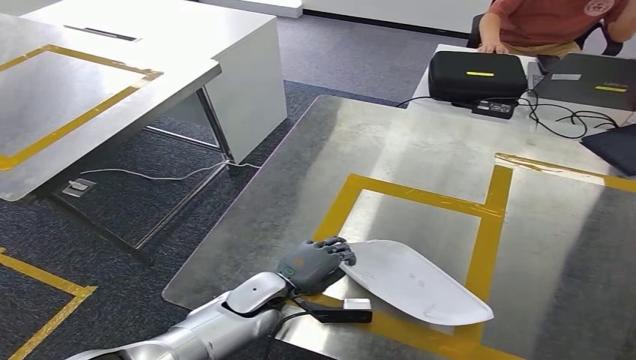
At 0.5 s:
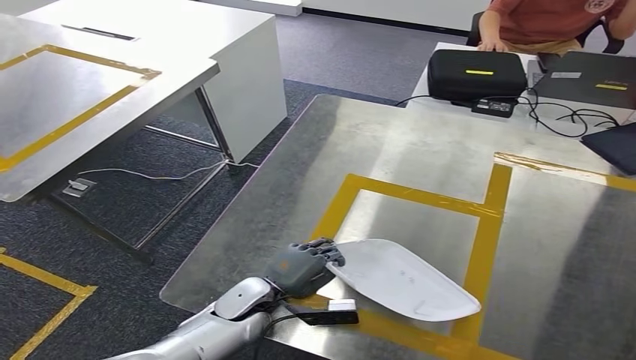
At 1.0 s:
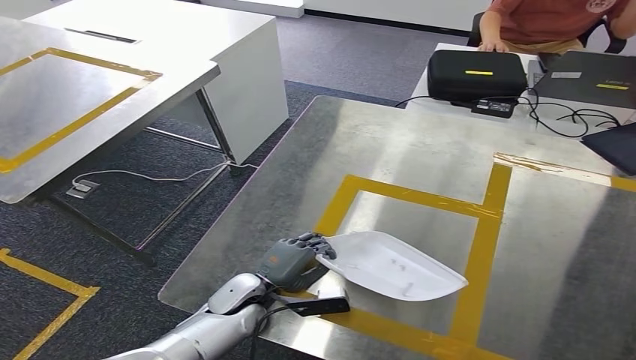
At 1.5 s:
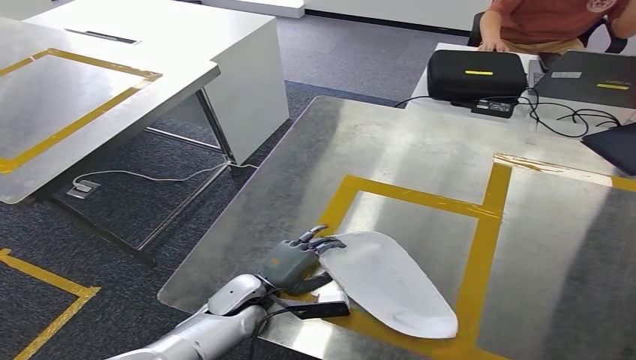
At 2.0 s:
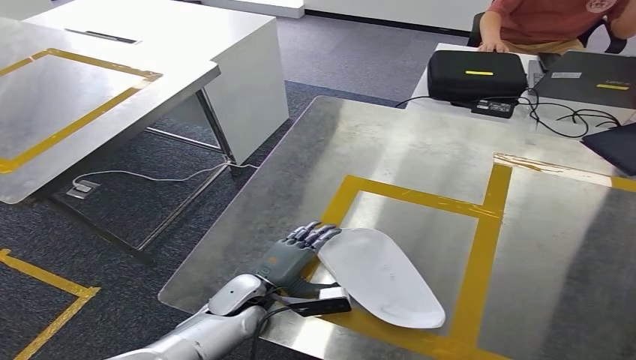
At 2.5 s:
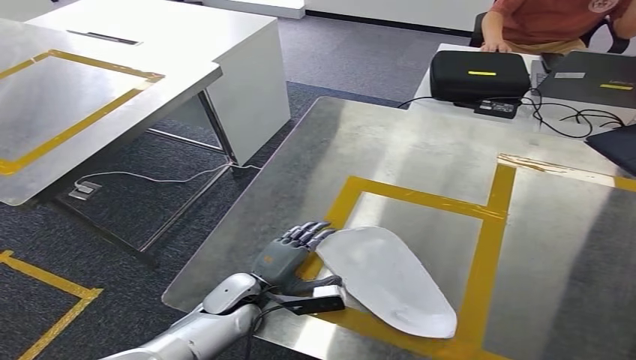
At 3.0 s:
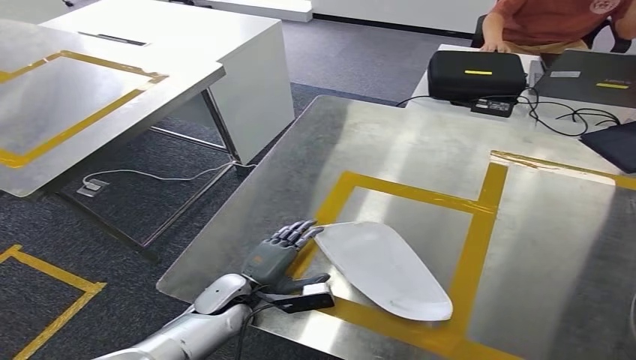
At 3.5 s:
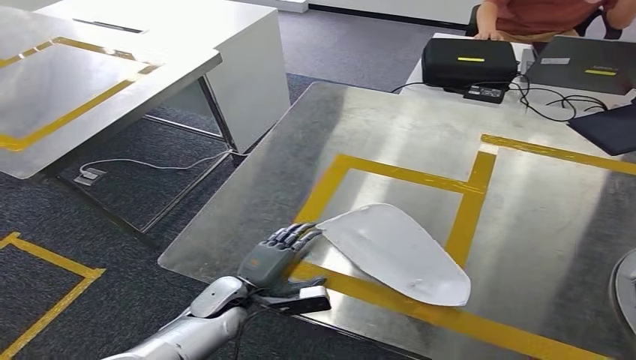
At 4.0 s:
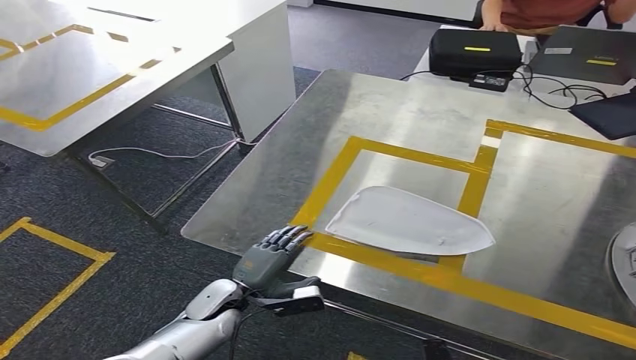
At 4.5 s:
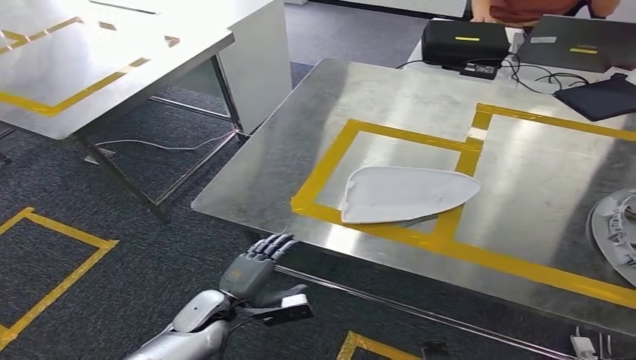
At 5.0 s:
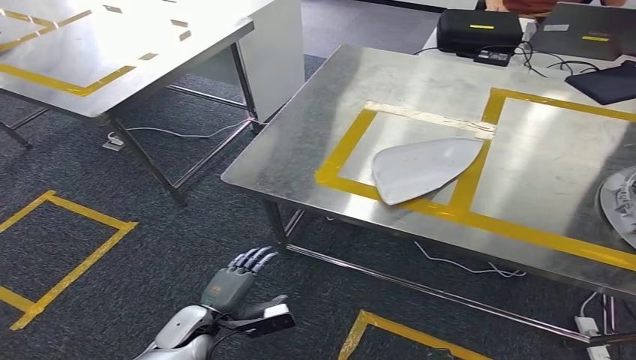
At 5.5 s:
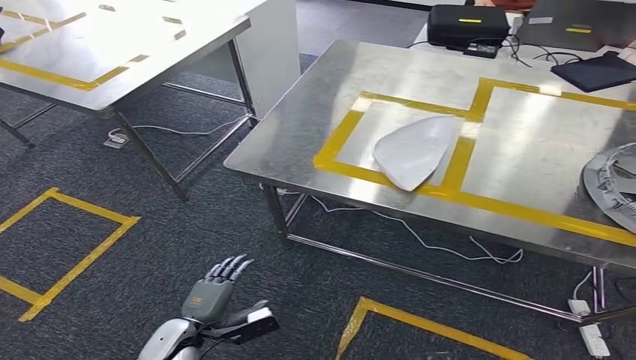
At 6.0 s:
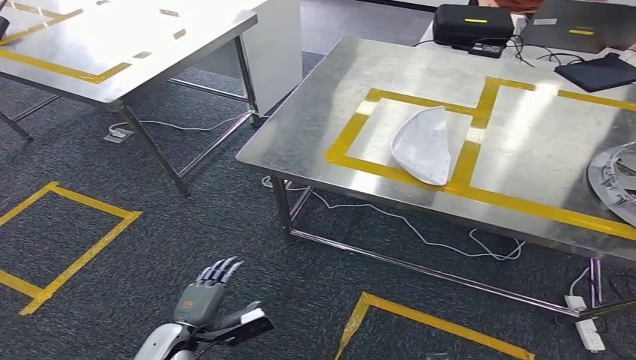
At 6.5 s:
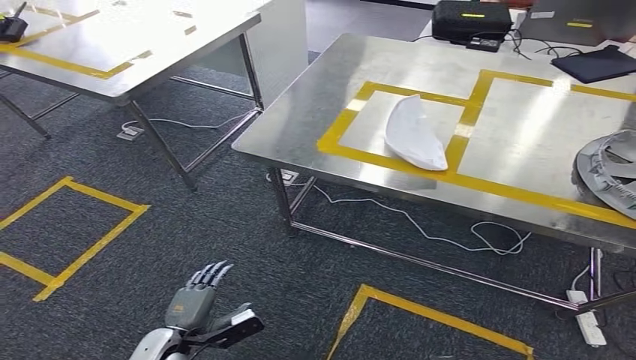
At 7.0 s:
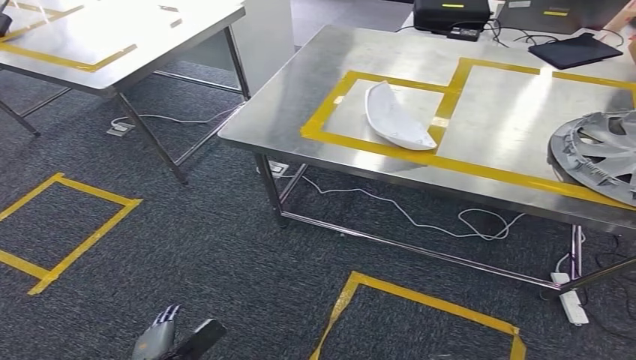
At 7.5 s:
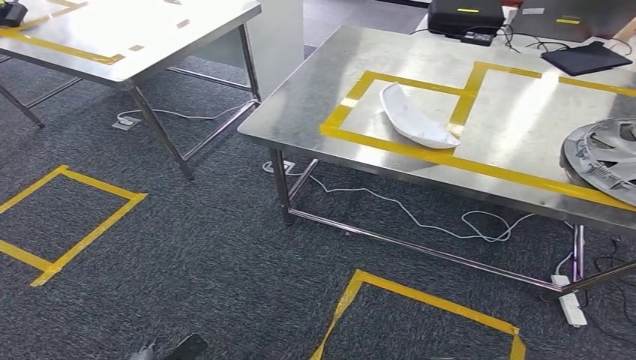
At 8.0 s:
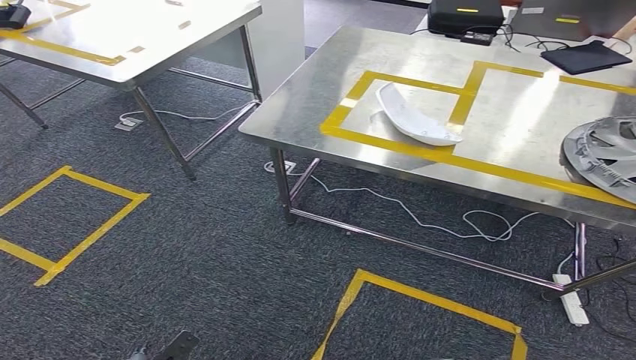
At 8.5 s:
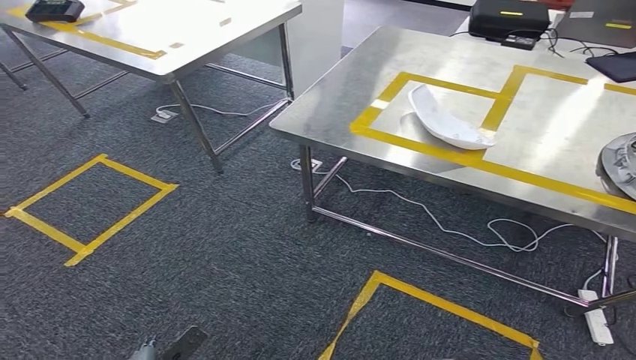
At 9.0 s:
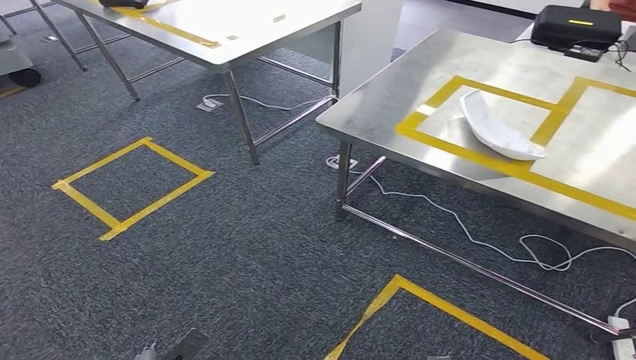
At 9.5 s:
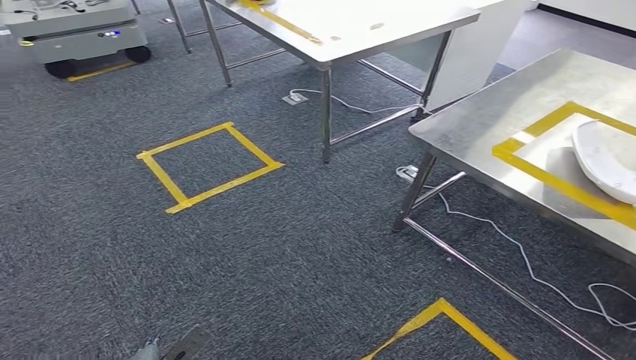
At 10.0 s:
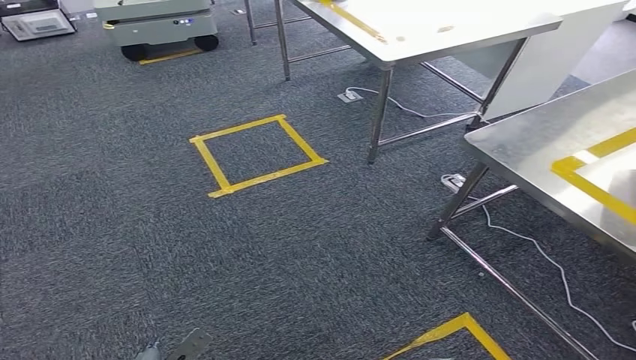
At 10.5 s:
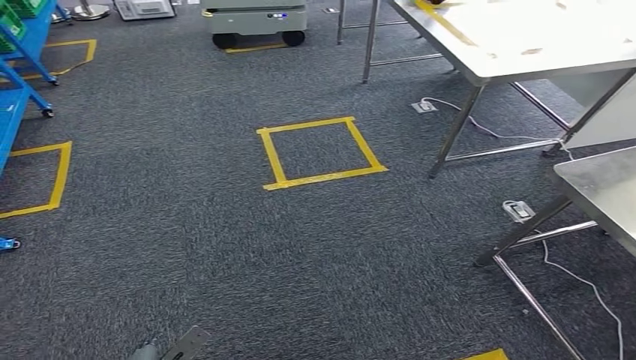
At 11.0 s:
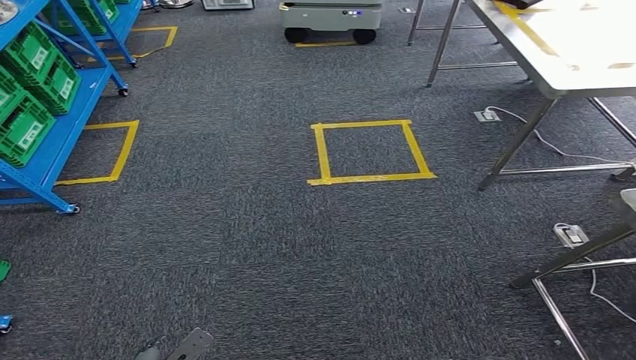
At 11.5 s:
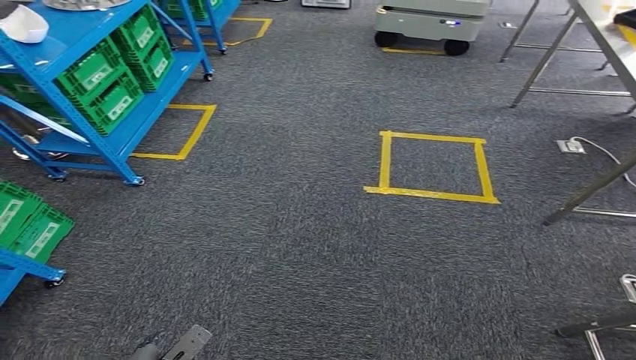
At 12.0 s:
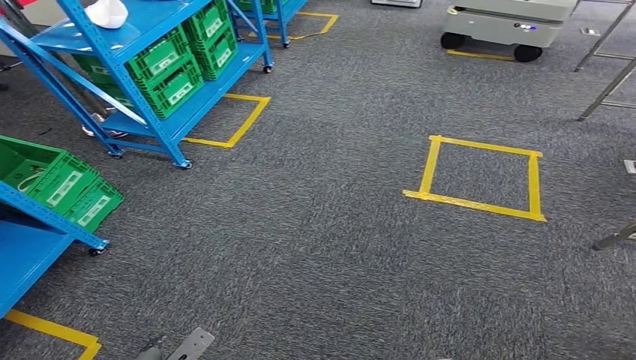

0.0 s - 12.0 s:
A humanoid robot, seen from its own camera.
Step, 0.0 s - 4.0 s: Insert the small parts into the corresponding slots on the workbench.
0.0 s - 2.0 s: The hands make only small movements.

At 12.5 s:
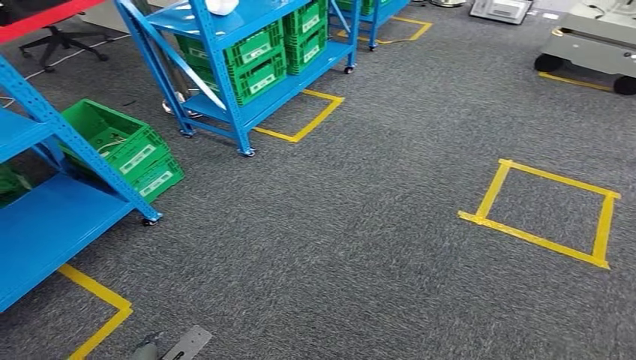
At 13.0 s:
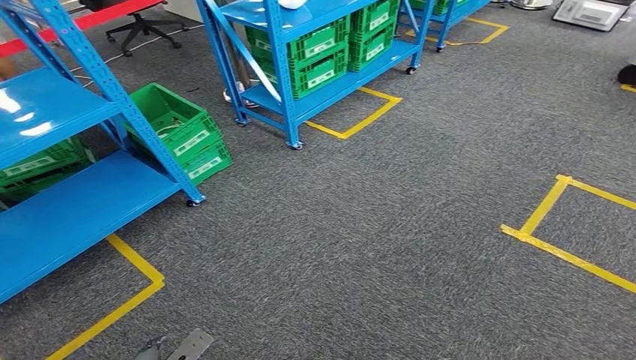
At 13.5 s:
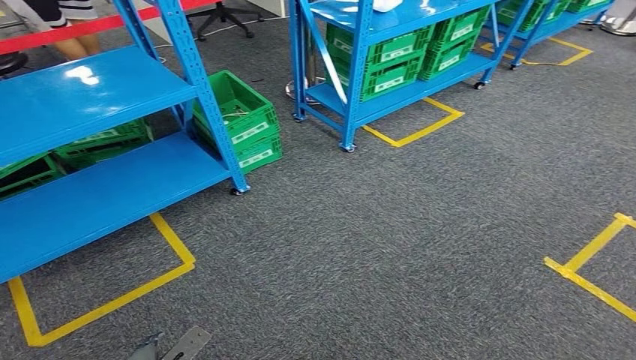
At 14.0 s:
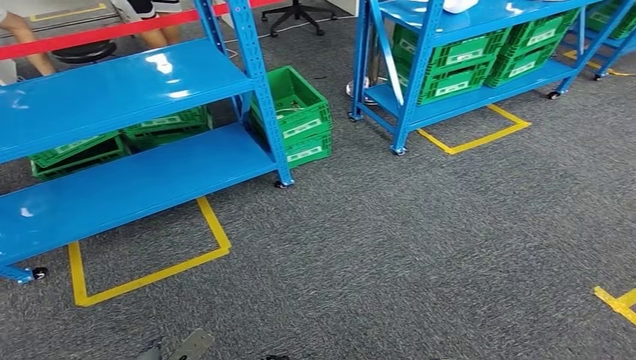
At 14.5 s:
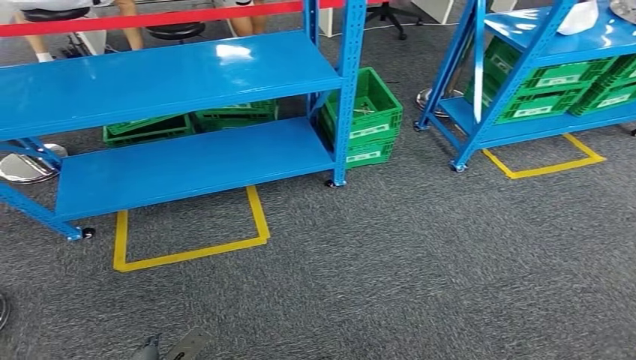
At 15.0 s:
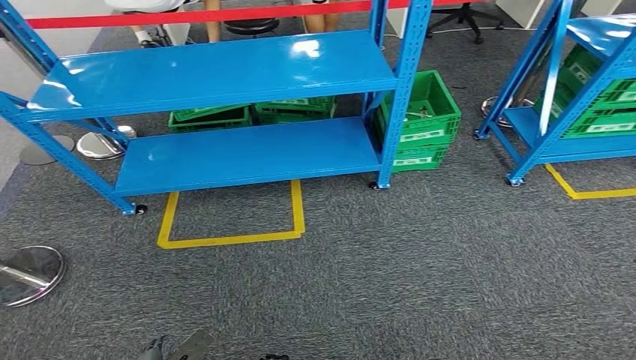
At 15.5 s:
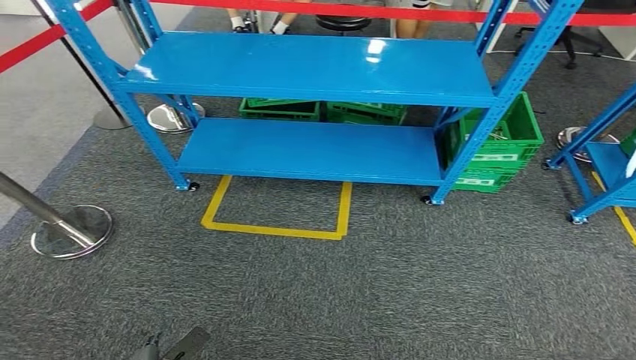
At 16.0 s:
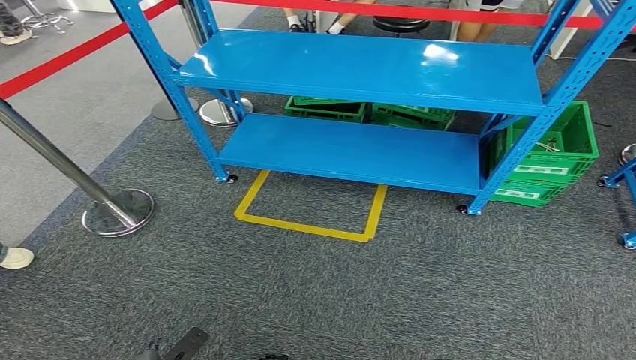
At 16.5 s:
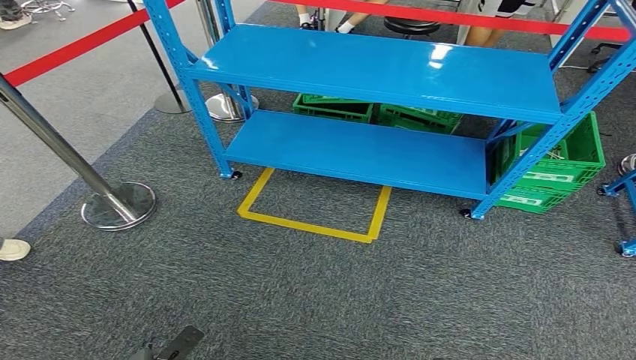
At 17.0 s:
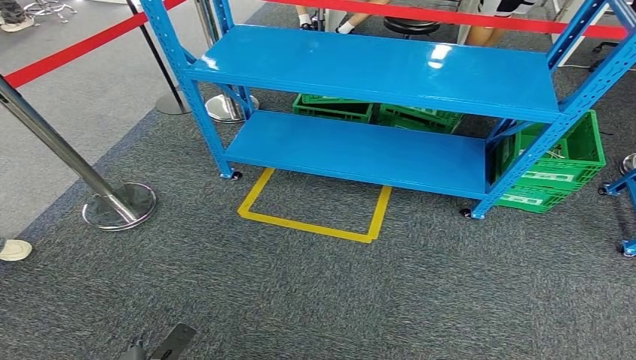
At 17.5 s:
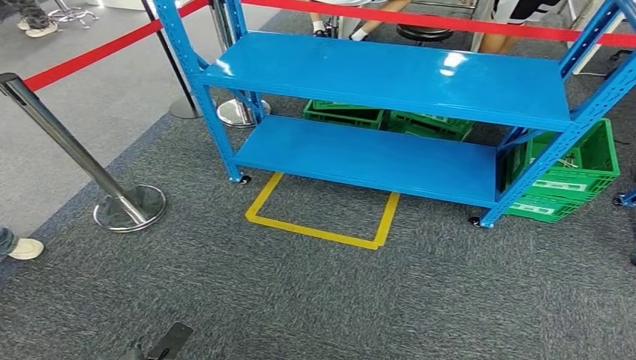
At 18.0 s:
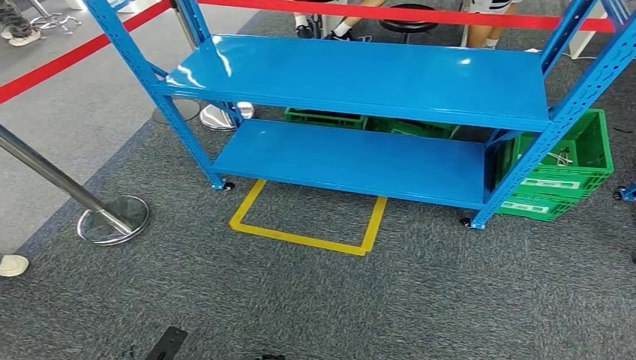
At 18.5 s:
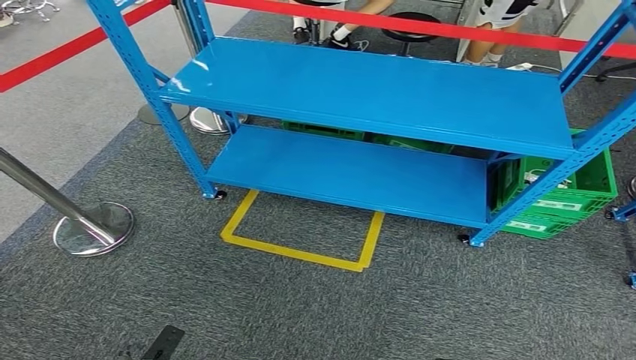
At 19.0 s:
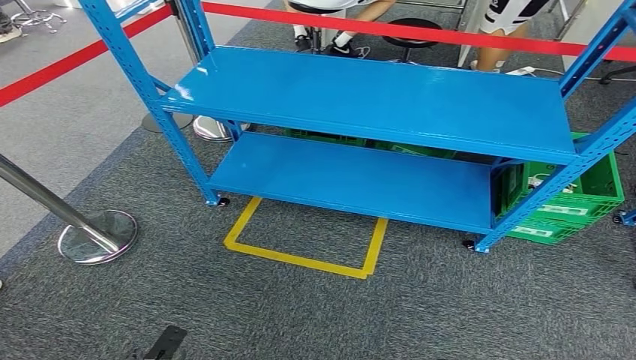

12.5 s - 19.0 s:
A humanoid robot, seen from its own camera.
Step, 12.5 s - 19.0 s: Return to the initial position at the workbench.
